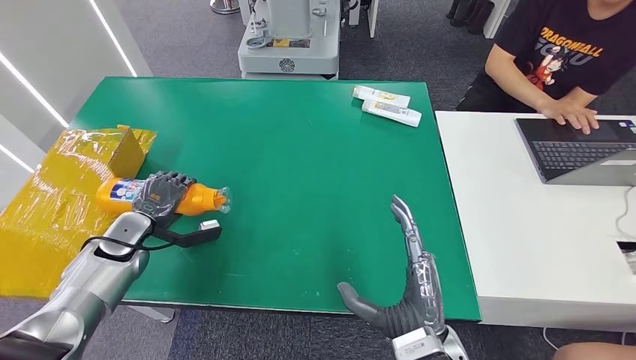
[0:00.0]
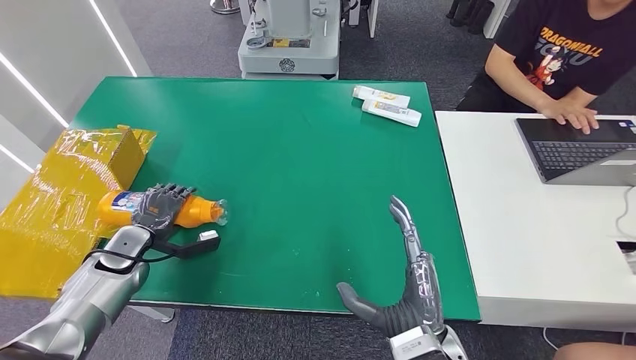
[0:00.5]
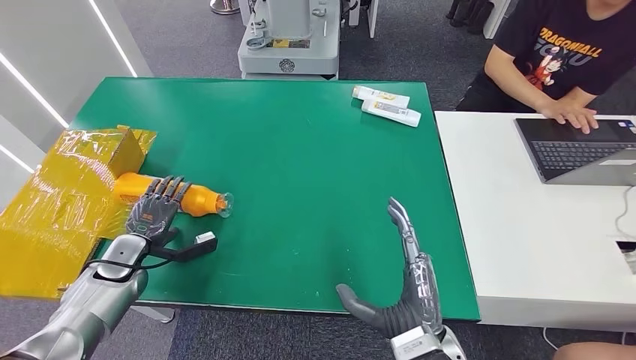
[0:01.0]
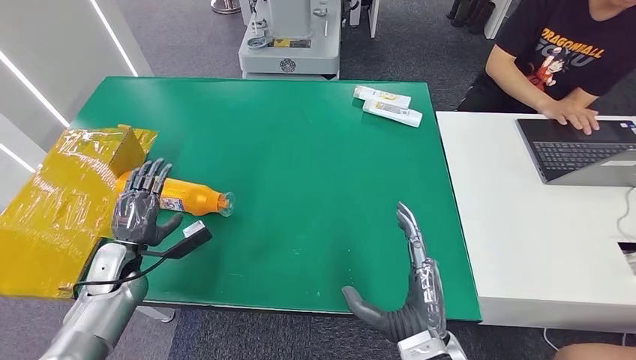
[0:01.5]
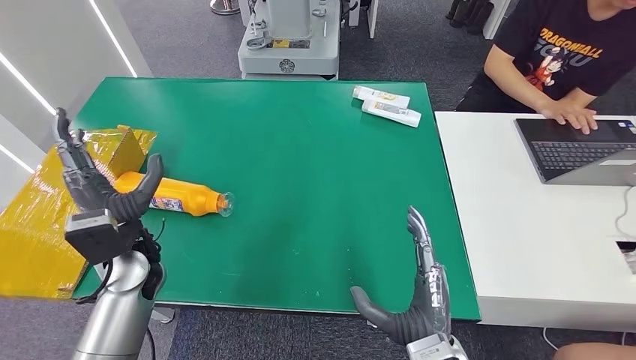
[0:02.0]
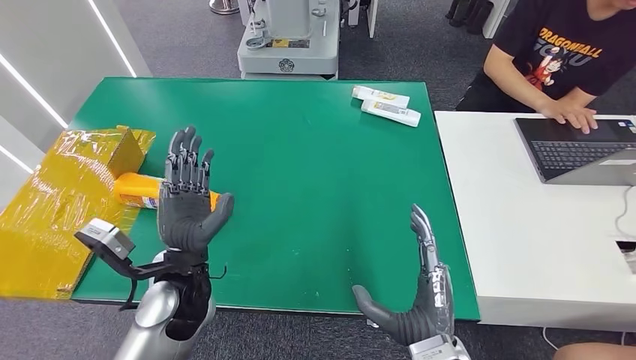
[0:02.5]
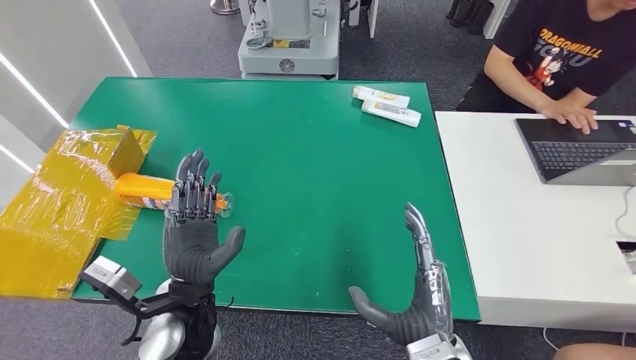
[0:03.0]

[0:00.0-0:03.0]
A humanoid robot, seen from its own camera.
Step, 0:00.0 to 0:03.0: Turn the bottle to the front side.
0:00.0 to 0:01.5: The left hand goes some 5 cm backward.
0:01.5 to 0:03.0: The left hand shifts approximately 25 cm to the right and upward.

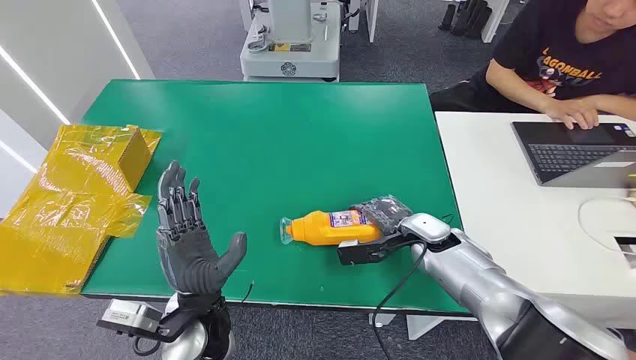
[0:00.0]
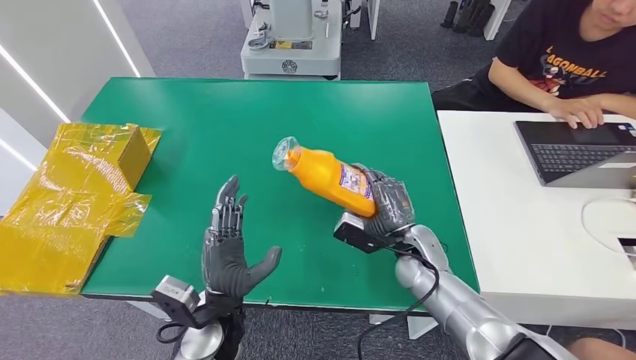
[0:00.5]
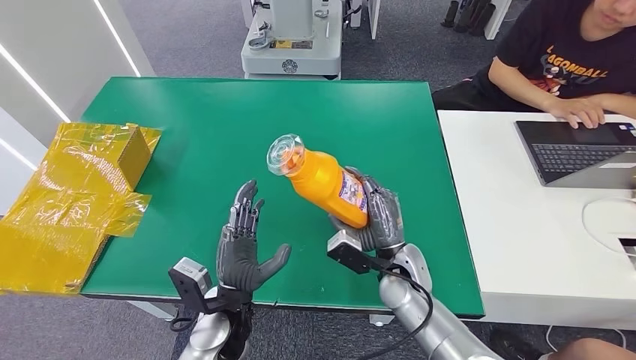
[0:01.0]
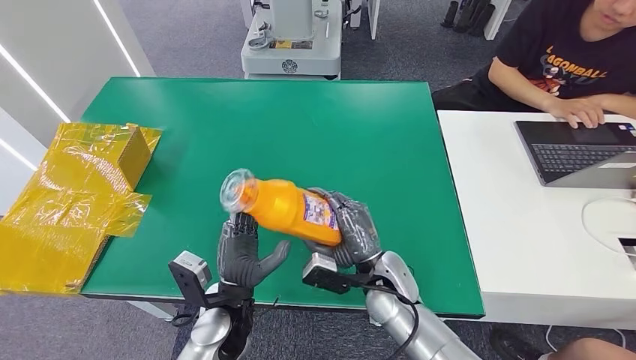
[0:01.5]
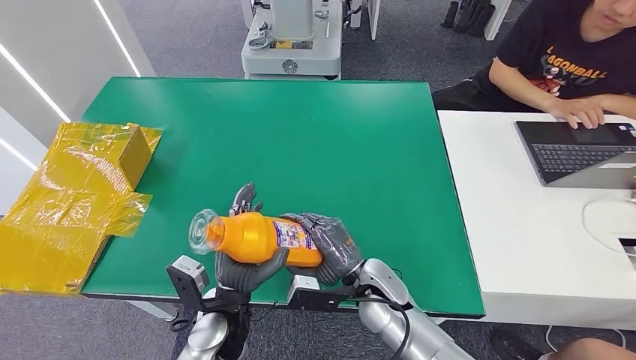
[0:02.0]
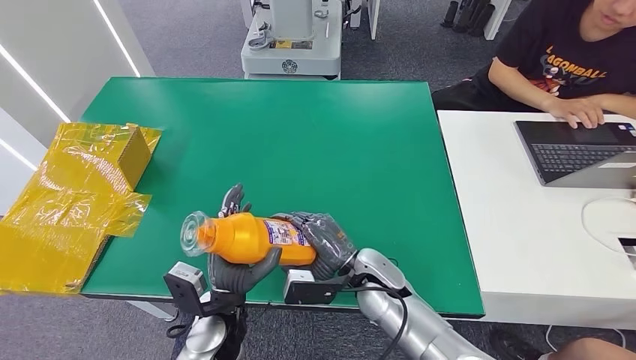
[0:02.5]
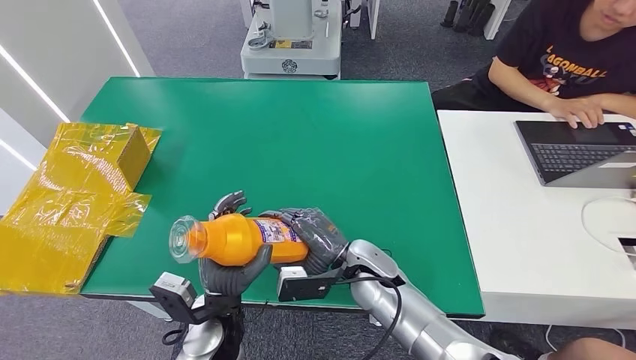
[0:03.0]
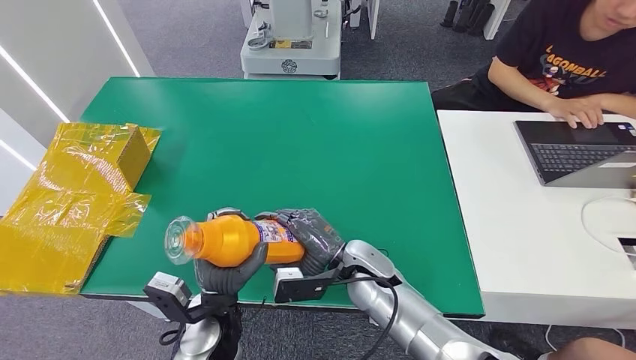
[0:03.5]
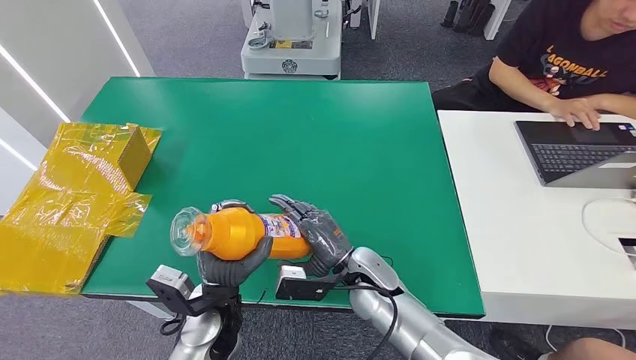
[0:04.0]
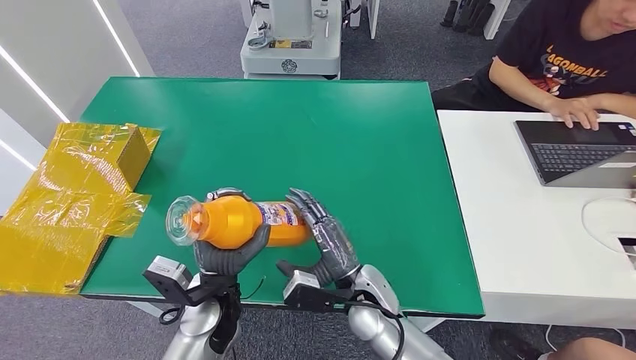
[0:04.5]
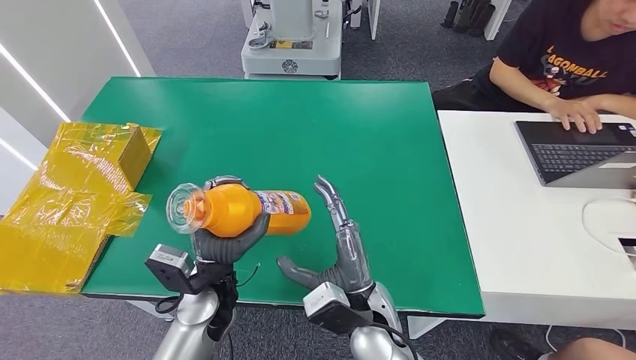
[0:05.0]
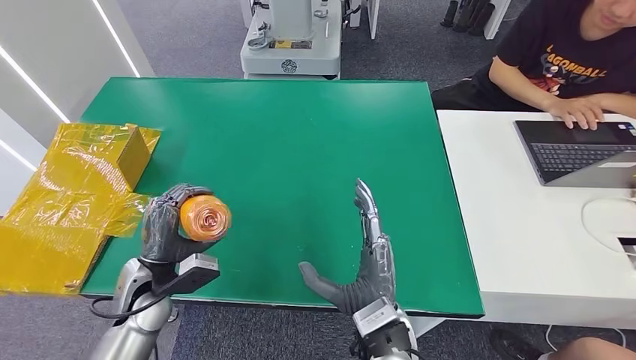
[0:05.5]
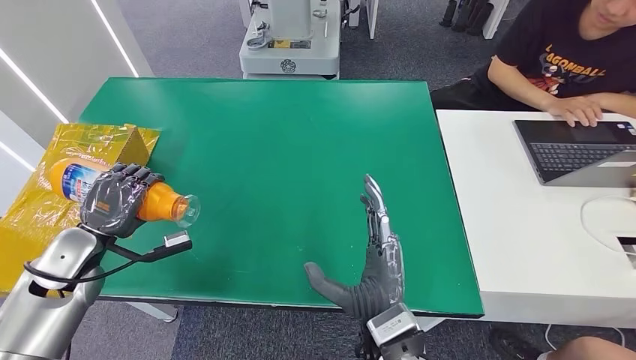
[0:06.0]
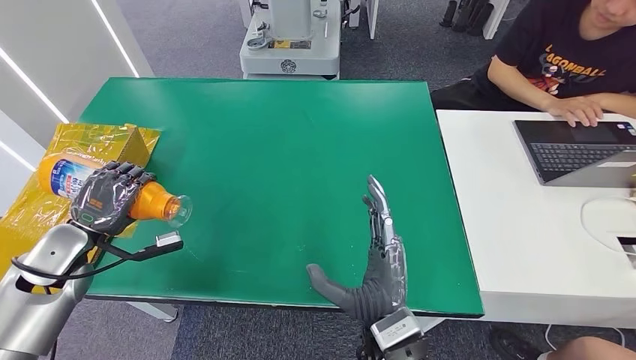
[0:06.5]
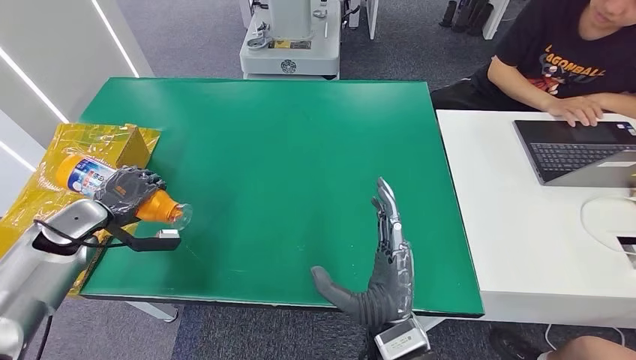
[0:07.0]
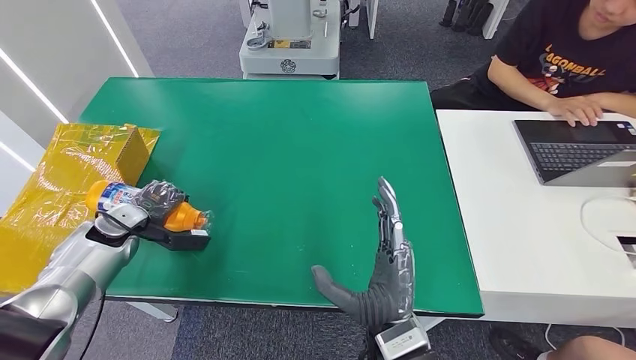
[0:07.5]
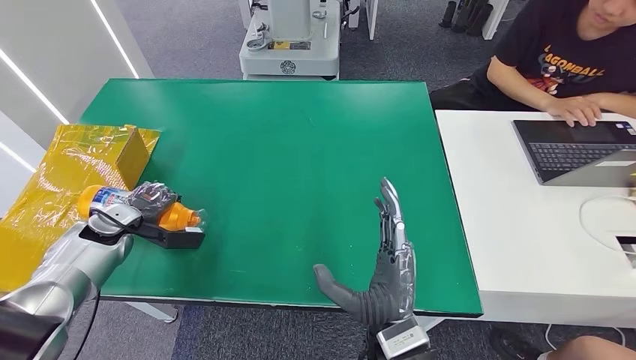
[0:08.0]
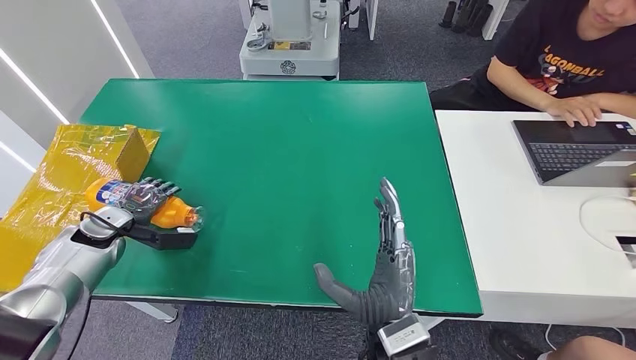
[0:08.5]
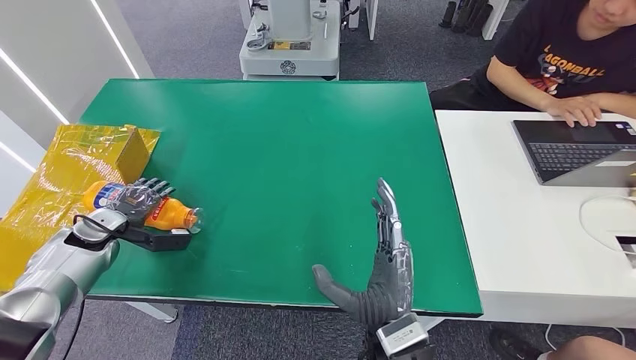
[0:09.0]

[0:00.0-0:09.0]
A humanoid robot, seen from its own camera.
Step, 0:00.0 to 0:02.5: Pick up the bottle from the table.
0:02.0 to 0:04.5: The hands move only a little.
0:04.5 to 0:07.0: The left hand goes some 30 cm to the left. Meanwhile the right hand heads backward and upward, covering some 10 cm.
0:07.0 to 0:09.0: The left hand shifts by about 5 cm.

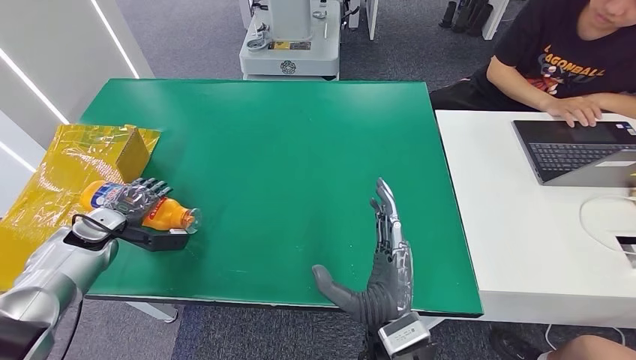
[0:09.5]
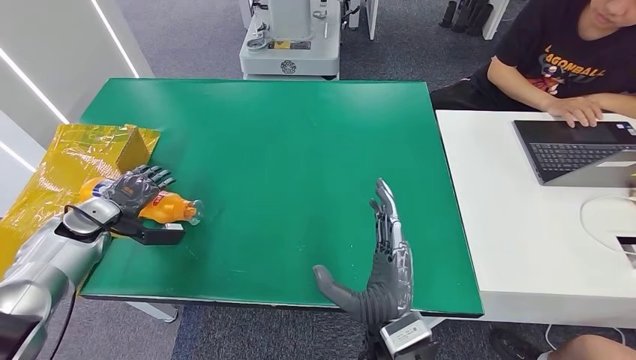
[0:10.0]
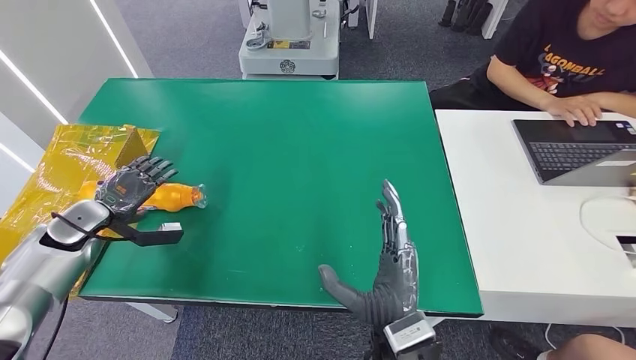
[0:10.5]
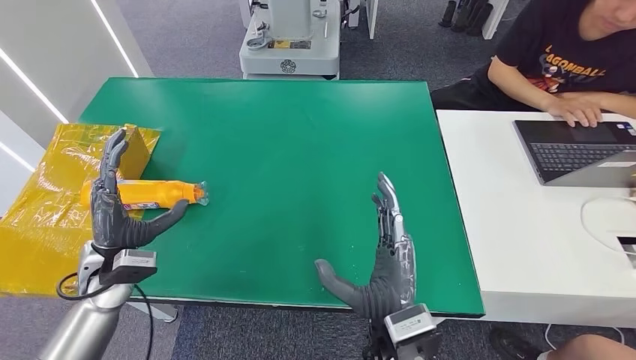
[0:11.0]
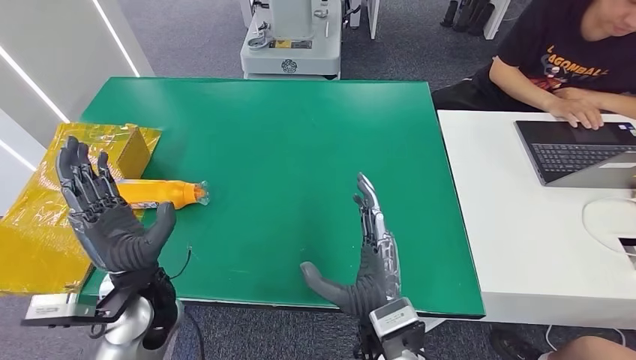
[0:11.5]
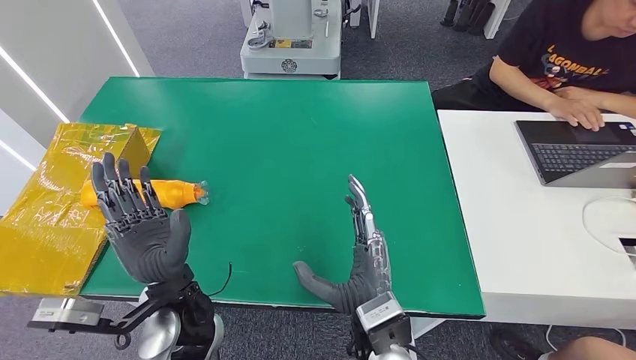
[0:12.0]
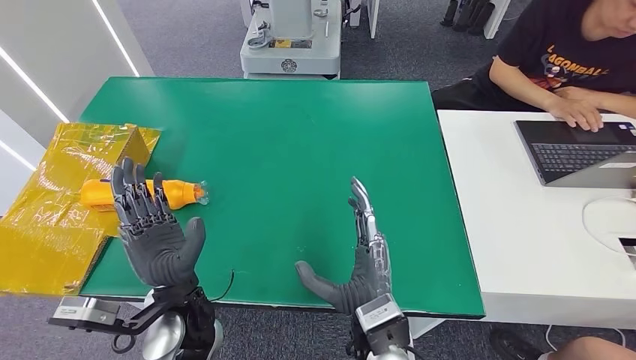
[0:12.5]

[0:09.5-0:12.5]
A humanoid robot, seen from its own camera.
0:09.5 to 0:11.0: The left hand is displaced to the right and backward by approximately 15 cm.
0:11.0 to 0:12.5: The left hand heads to the right and backward, covering about 20 cm.
